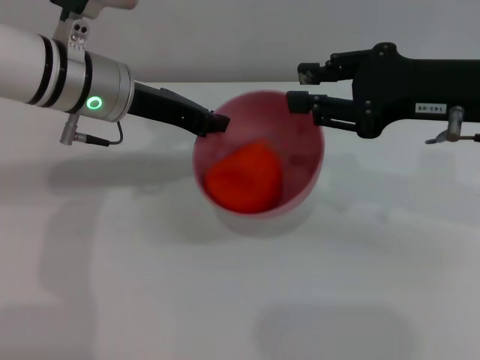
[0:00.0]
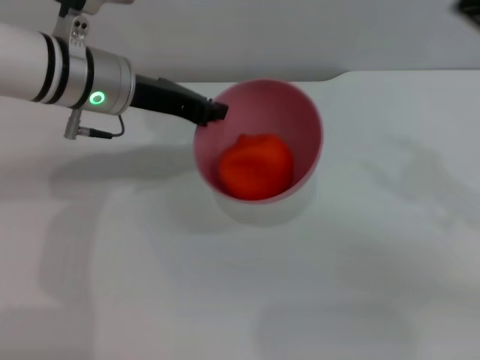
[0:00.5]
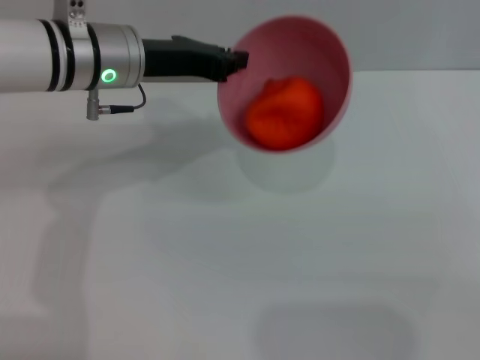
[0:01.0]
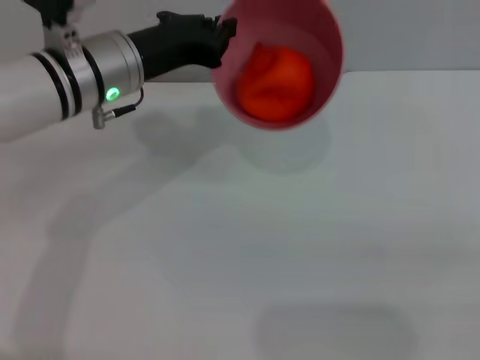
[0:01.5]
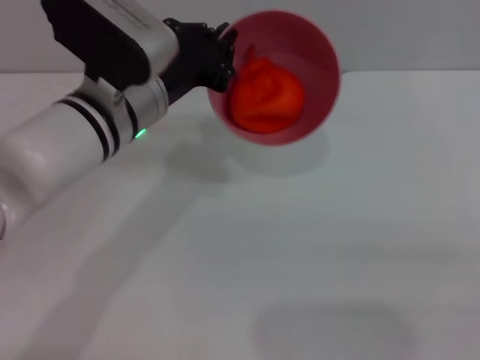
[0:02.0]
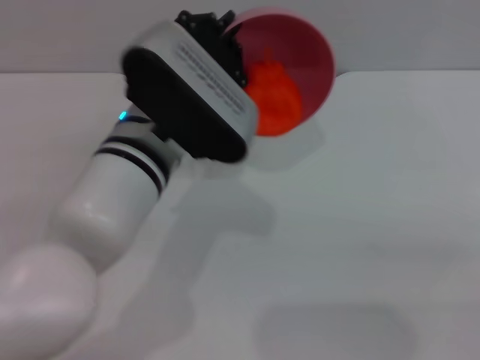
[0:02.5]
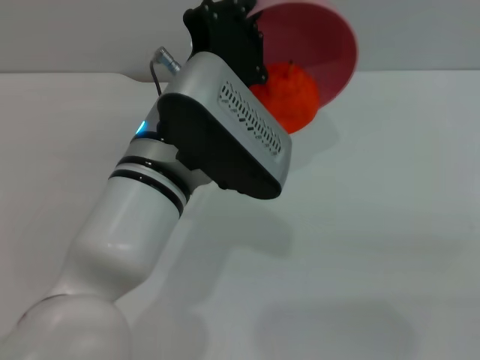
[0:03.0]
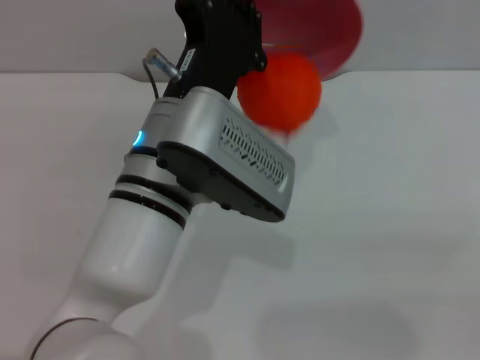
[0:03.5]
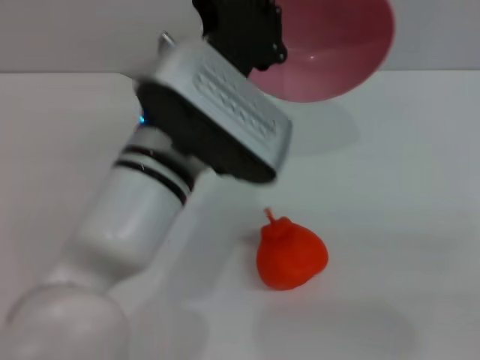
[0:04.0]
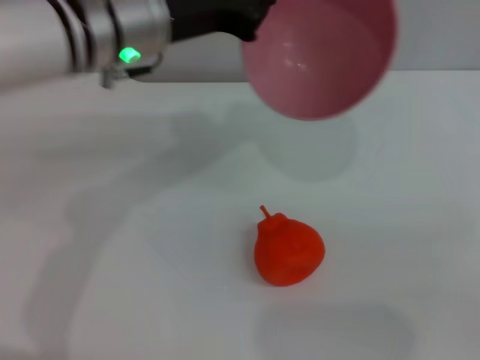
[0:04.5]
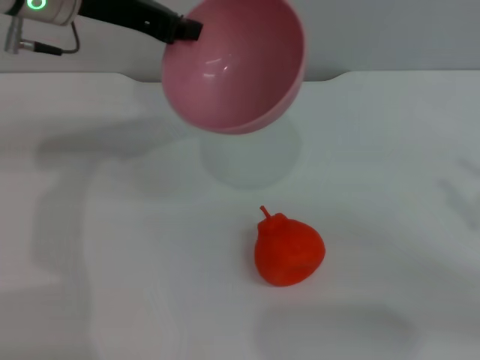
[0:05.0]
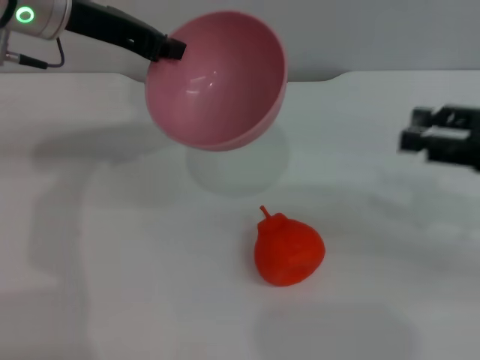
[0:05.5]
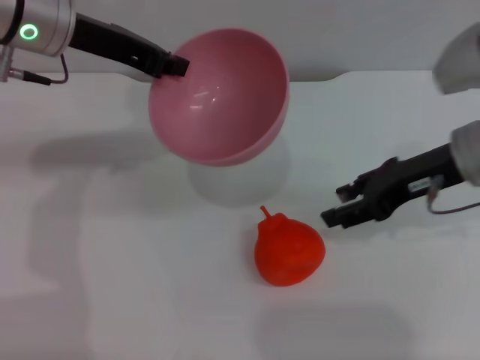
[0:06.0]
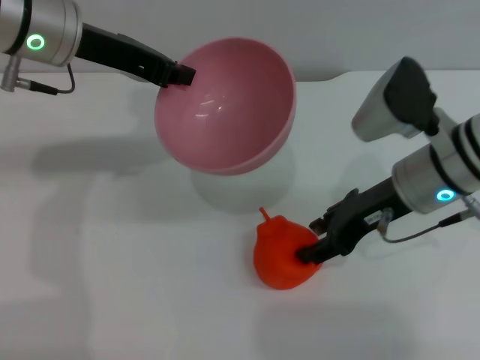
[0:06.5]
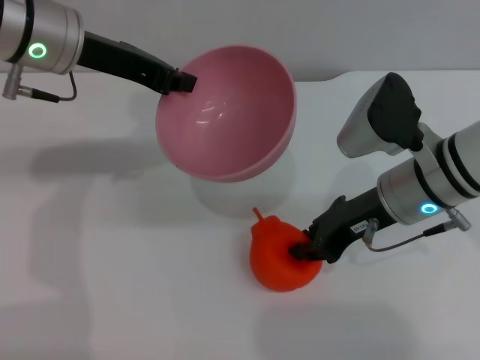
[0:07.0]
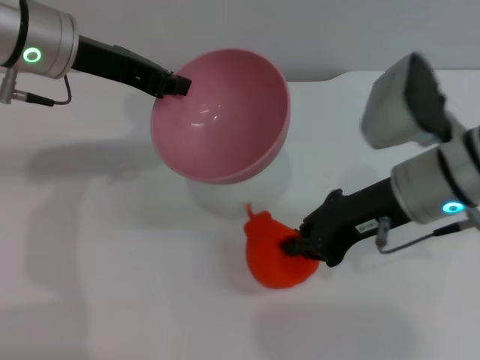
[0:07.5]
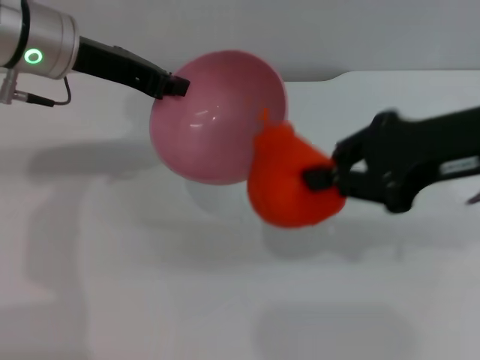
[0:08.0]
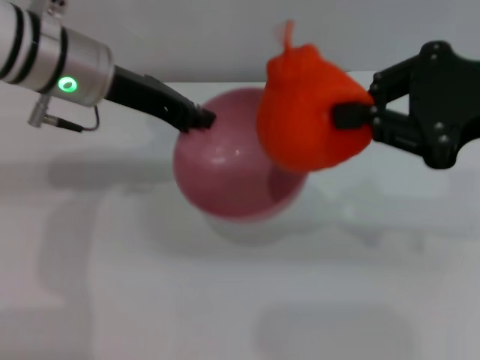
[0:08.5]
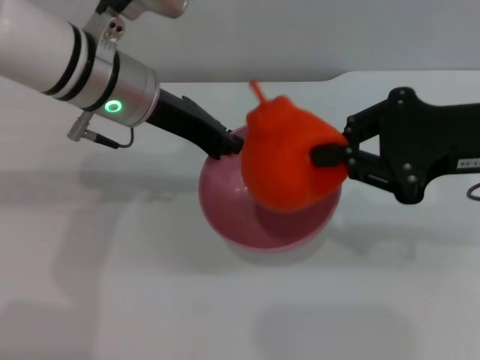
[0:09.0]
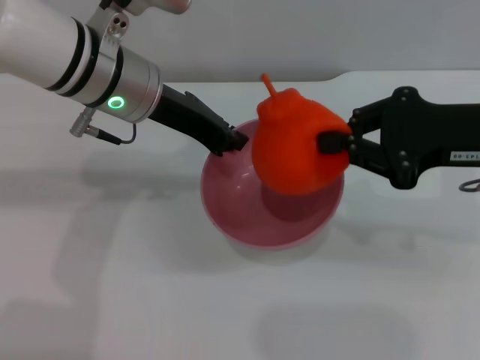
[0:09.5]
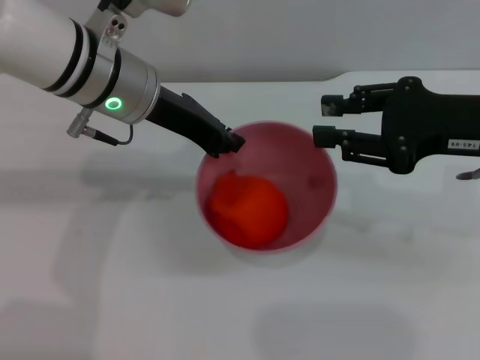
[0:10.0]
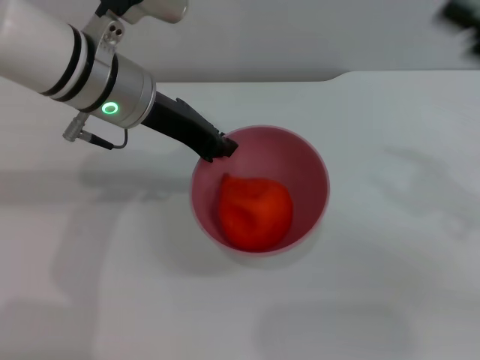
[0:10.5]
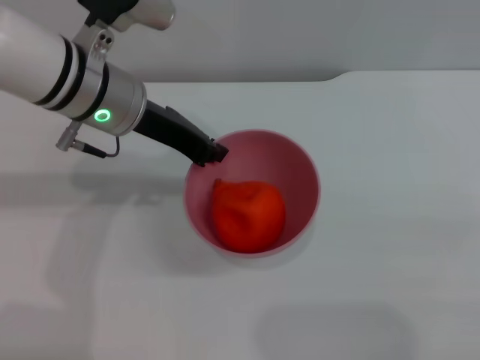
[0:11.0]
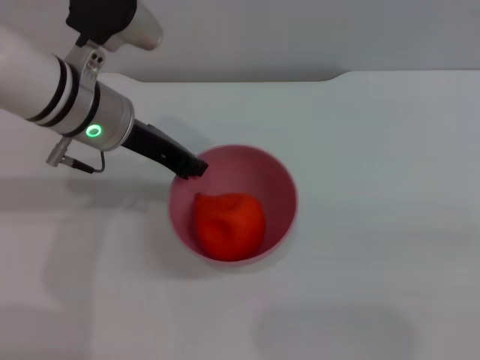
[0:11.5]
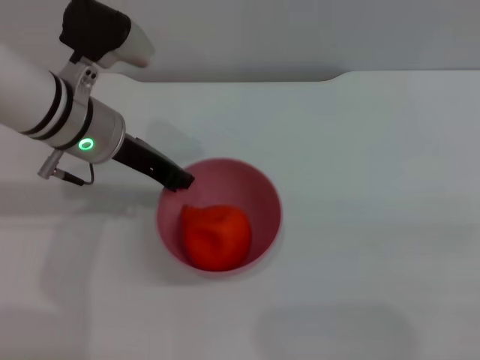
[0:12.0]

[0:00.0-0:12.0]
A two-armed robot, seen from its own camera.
Task of the whole recording: put the orange into the pink bowl and pour it out repeatedly.
Step, 0:00.5 to 0:04.0: Pour the orange out of the bowl.
Step, 0:04.5 to 0:07.5: Pick up the orange with the right gripper.
Step, 0:08.0 to 0:10.0: Place the orange into the bowl.
0:00.0 to 0:02.0: The left gripper is displaced backward by some 5 cm. Meanwhile the right gripper goes approximately 25 cm to the right, backward and downward, and opens up.
0:02.0 to 0:04.0: The left gripper is displaced to the right and backward by about 10 cm.
0:04.0 to 0:06.0: The right gripper goes some 20 cm forward and to the left. Meanwhile the left gripper shifts some 20 cm to the left, forward and upward.
0:06.0 to 0:08.0: The right gripper is displaced upward and backward by roughly 10 cm, and closes its fingers.
0:08.0 to 0:10.0: The right gripper shifts by roughly 5 cm, and opens up, while the left gripper goes some 5 cm to the right.
0:10.0 to 0:12.0: The right gripper goes some 20 cm to the right, backward and downward, and opens up, while the left gripper ends up roughly 5 cm from where it was.

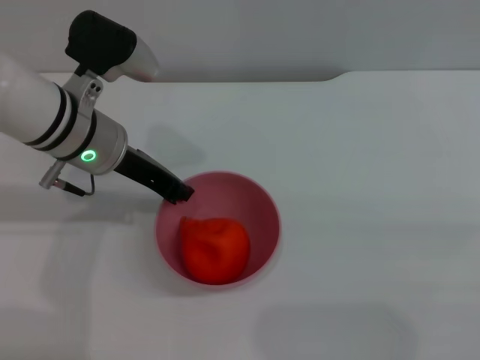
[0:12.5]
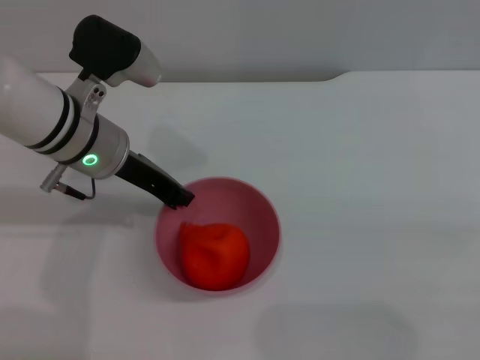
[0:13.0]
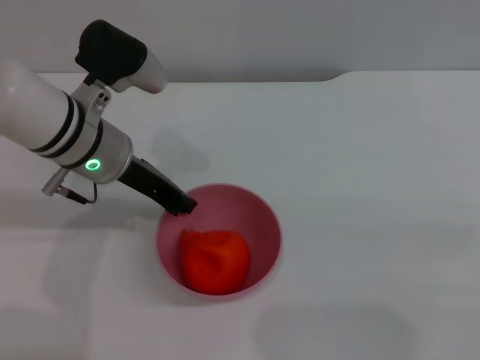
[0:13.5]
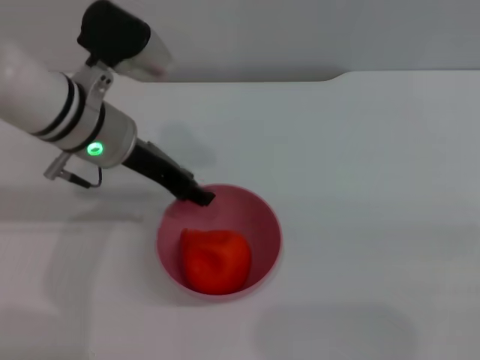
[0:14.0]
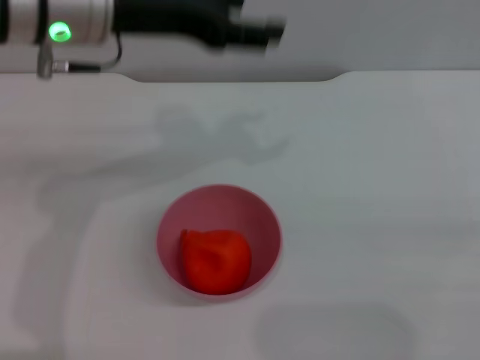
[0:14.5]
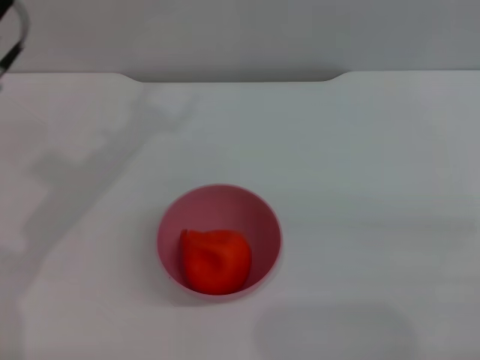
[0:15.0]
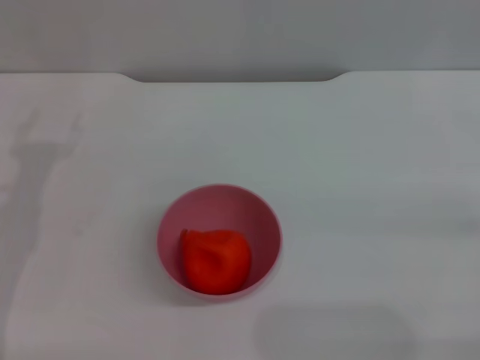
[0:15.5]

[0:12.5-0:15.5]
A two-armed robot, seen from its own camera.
Task of the whole recording: put the orange into the pink bowl and pour it out repeatedly.
0:12.5 to 0:14.0: The left gripper opens.
0:14.0 to 0:15.5: The left gripper travels to the left and backward by about 15 cm, moves approximately 10 cm upward and comes back, and opens its fingers.
